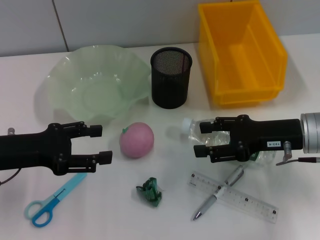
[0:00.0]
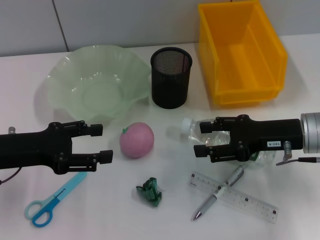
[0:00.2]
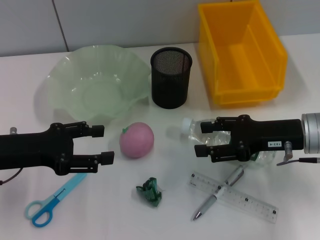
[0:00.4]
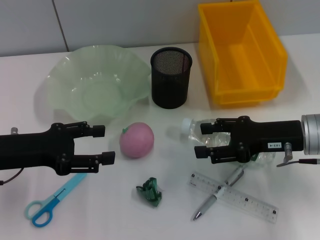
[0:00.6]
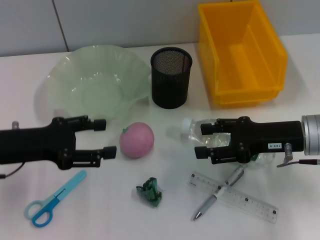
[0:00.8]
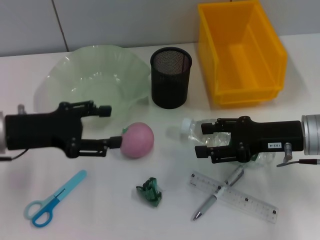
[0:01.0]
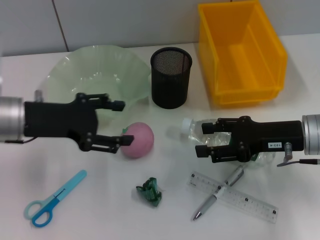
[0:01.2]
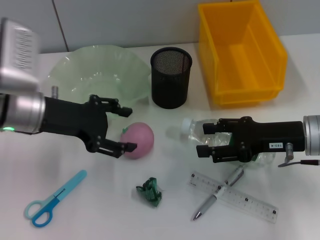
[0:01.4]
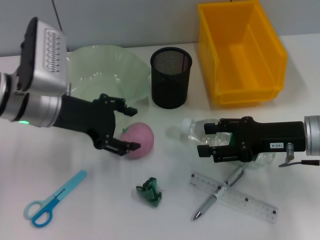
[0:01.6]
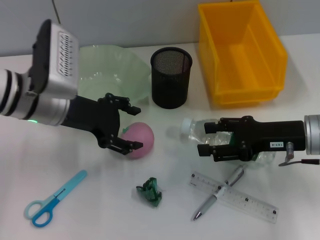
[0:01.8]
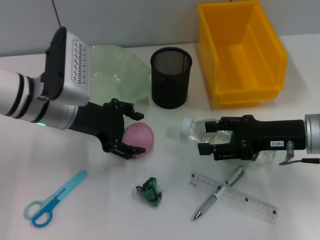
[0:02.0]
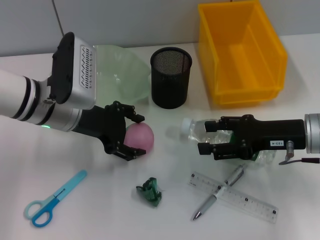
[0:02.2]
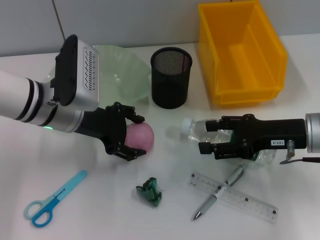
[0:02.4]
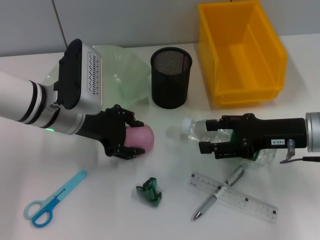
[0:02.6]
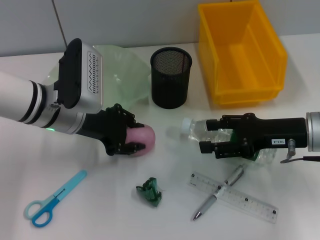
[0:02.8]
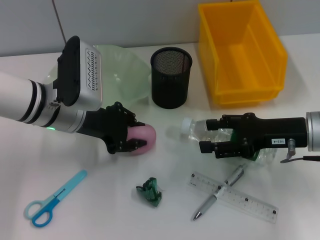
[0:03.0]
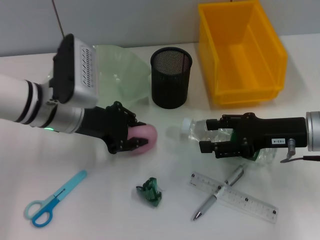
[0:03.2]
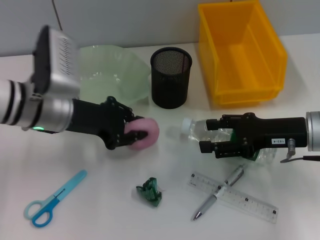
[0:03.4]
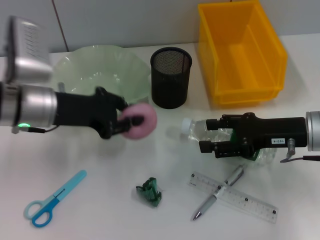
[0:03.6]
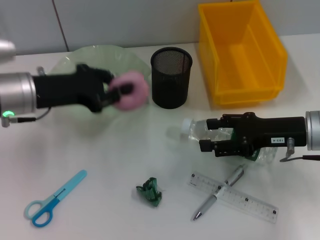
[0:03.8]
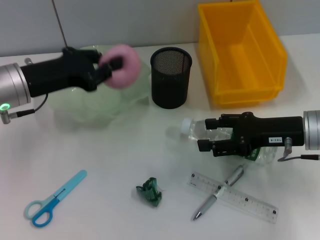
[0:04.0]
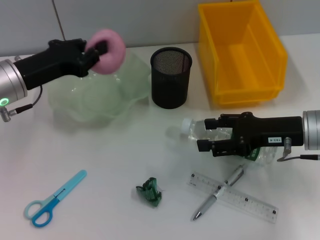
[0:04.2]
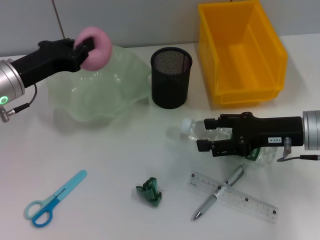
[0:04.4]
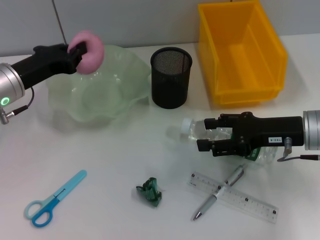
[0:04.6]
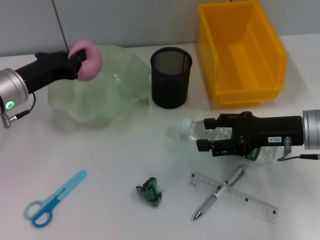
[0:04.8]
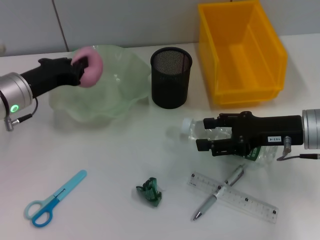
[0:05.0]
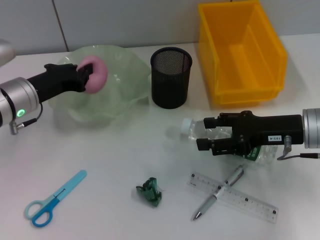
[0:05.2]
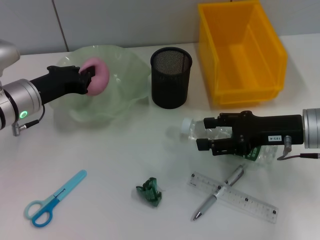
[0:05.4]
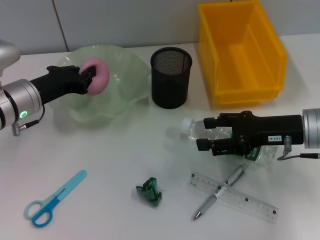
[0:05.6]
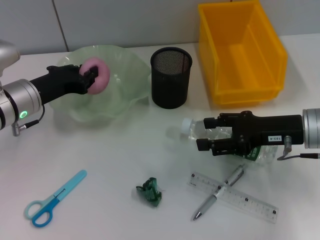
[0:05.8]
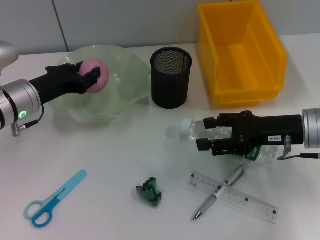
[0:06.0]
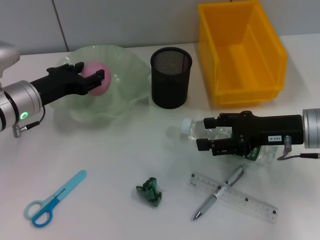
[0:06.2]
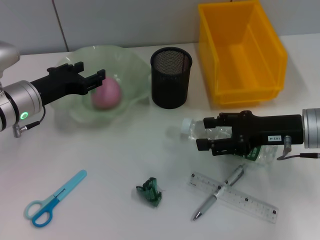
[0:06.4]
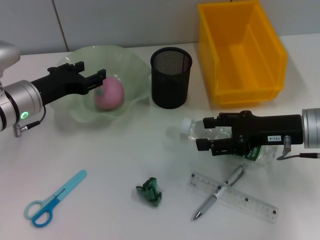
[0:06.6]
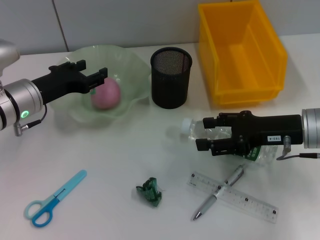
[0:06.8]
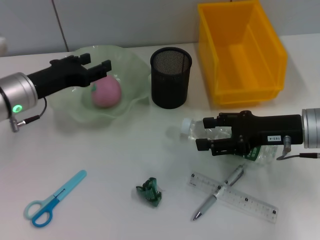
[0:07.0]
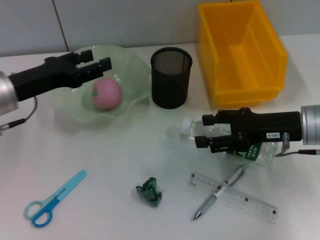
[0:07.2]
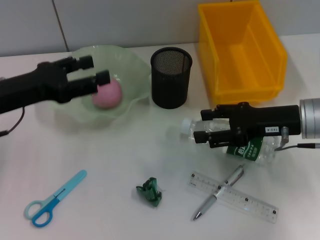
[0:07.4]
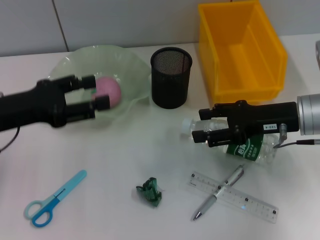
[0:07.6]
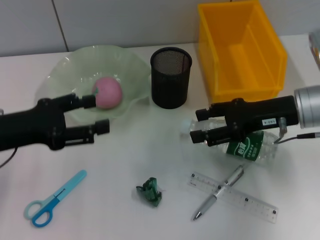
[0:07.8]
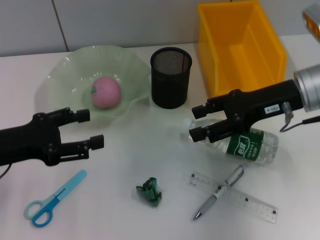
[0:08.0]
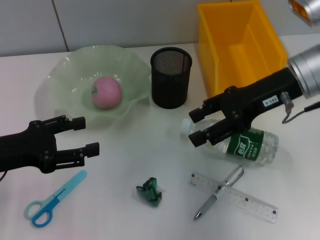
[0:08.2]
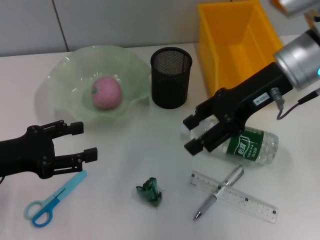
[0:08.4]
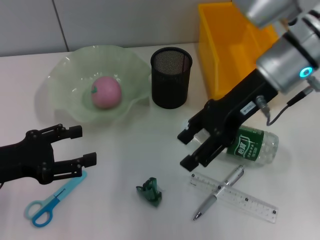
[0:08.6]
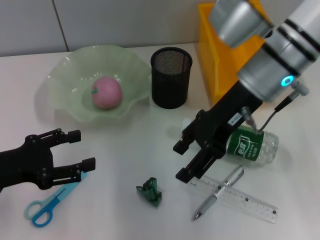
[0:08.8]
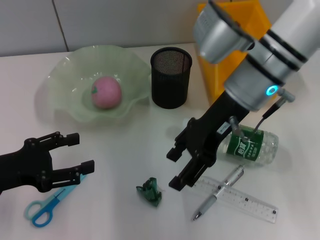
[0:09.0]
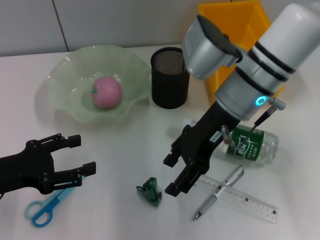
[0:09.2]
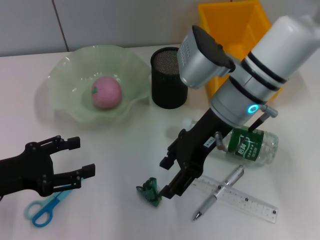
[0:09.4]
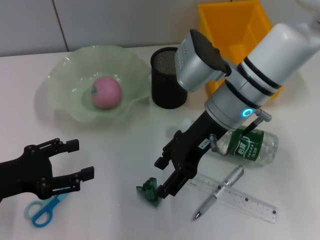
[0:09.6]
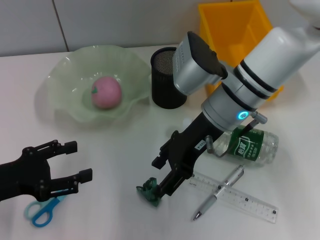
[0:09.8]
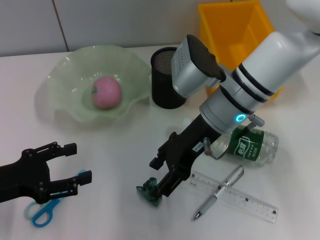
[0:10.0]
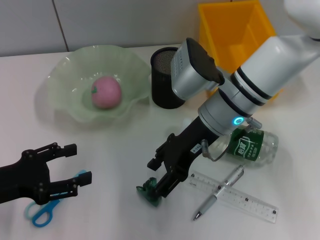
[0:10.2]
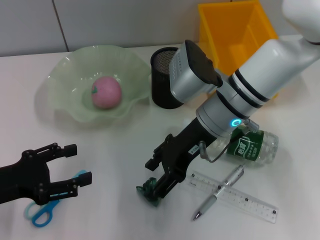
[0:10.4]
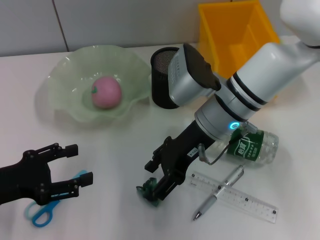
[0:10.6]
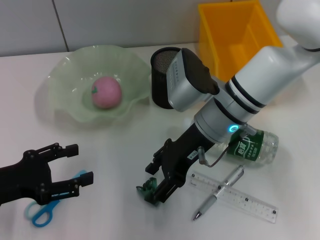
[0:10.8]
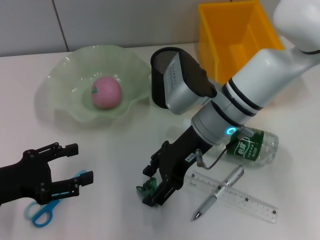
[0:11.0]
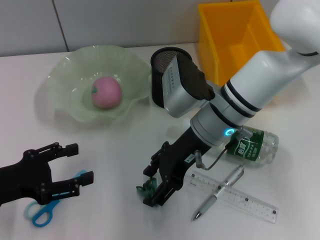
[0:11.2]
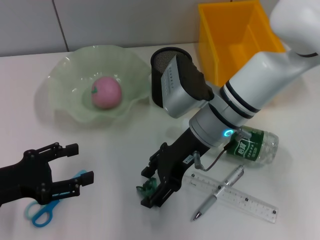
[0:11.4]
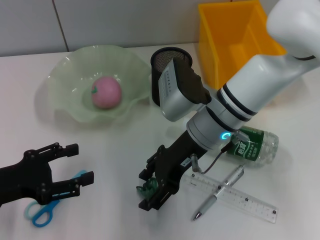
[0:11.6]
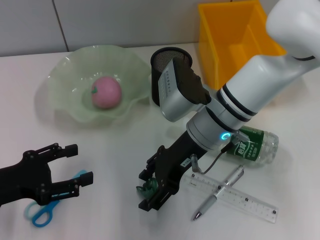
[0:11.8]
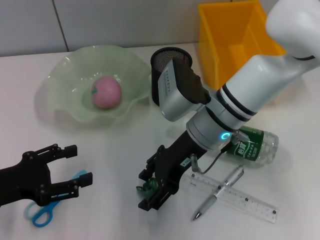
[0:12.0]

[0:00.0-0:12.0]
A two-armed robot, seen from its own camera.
Step, 0:00.0 to 0:02.8: Grab the peach with the left hand.
Step, 0:03.0 to 0:06.4: Place the peach into the fruit bowl with the left hand.
0:00.0 to 0:01.6: The left gripper shifts about 10 cm to the right and forward.
0:01.6 to 0:03.0: The left gripper closes.
0:03.0 to 0:04.4: The left gripper heads to the left, covering roughly 10 cm, and closes up.
0:04.4 to 0:06.0: The grippers make only small movements.
0:06.0 to 0:07.6: The left gripper heads backward and upward, covering some 10 cm, and opens.
0:07.6 to 0:09.0: The right gripper shifts about 15 cm to the left and upward. Meanwhile the left gripper travels backward and downward by approximately 5 cm.
0:09.0 to 0:10.4: The right gripper goes some 5 cm downward.
0:10.4 to 0:12.0: There are only small adjustments of the grippers.

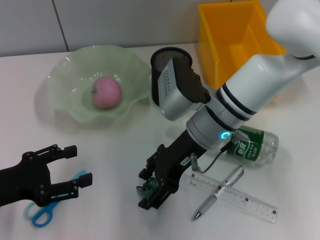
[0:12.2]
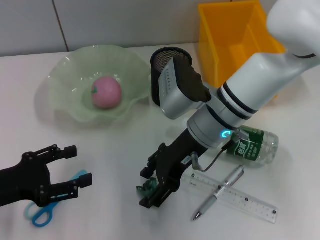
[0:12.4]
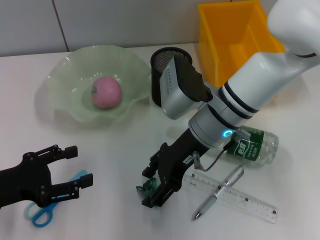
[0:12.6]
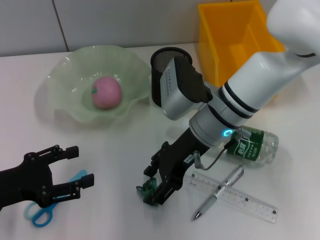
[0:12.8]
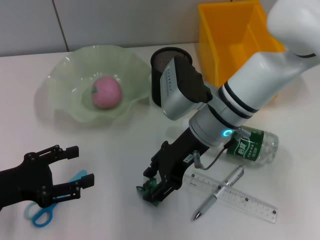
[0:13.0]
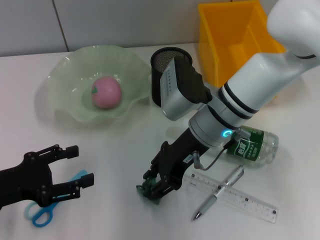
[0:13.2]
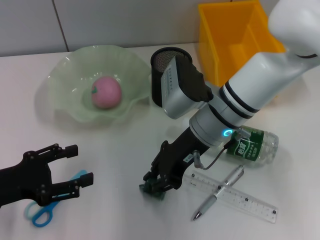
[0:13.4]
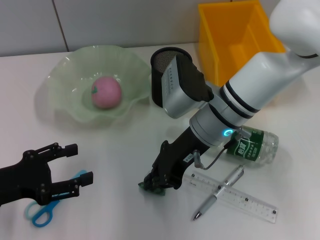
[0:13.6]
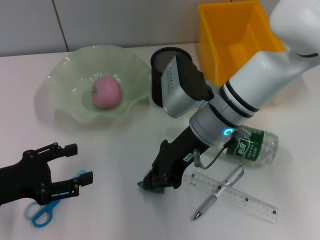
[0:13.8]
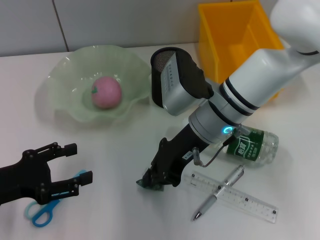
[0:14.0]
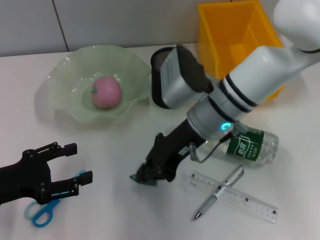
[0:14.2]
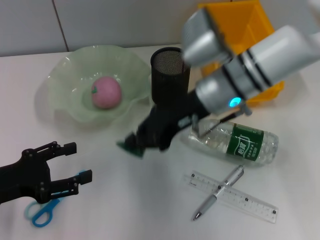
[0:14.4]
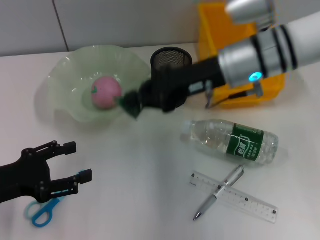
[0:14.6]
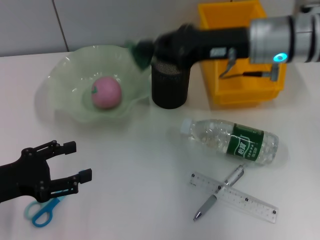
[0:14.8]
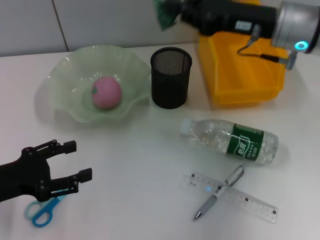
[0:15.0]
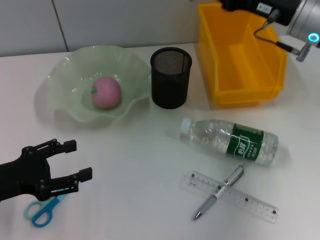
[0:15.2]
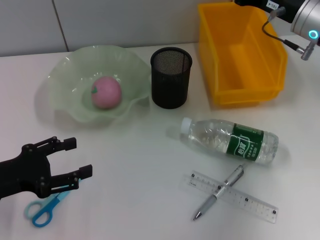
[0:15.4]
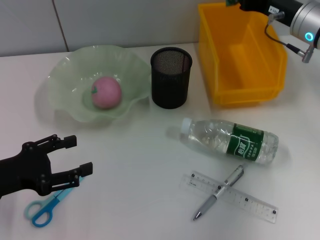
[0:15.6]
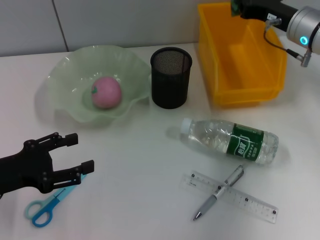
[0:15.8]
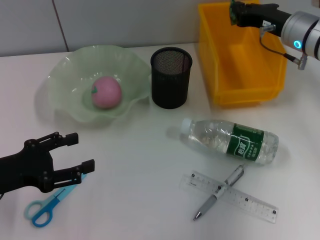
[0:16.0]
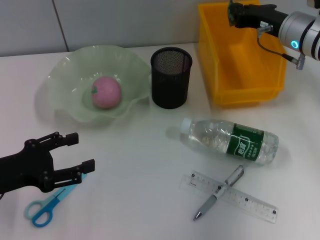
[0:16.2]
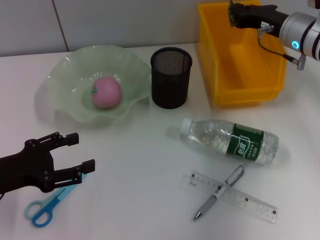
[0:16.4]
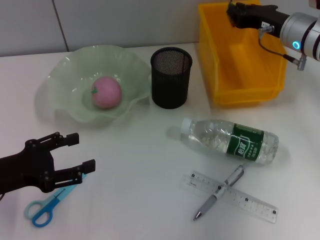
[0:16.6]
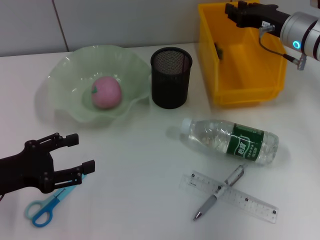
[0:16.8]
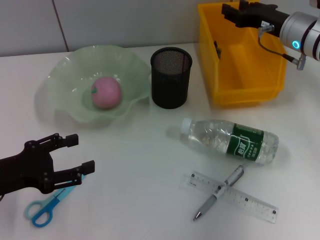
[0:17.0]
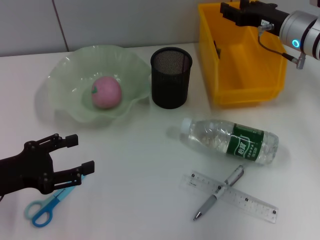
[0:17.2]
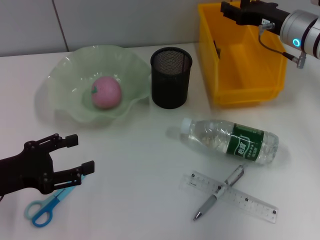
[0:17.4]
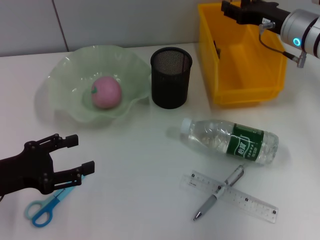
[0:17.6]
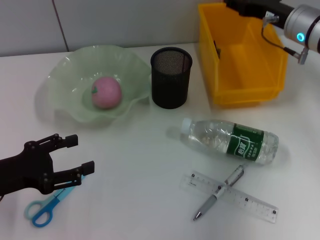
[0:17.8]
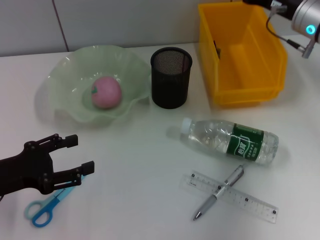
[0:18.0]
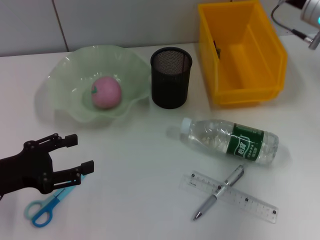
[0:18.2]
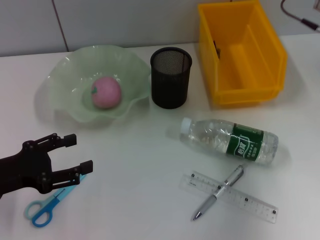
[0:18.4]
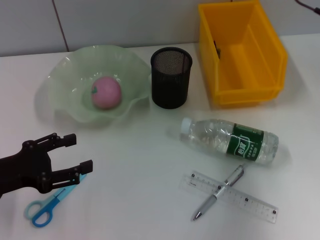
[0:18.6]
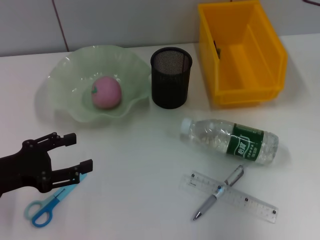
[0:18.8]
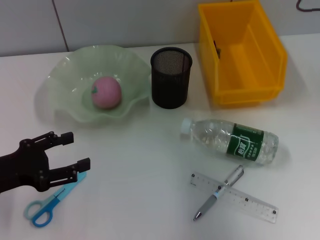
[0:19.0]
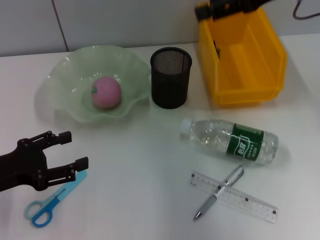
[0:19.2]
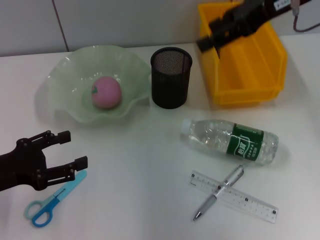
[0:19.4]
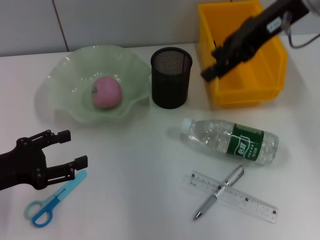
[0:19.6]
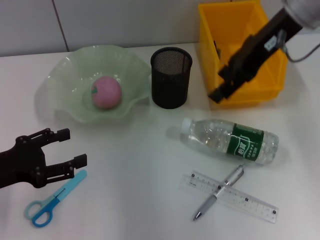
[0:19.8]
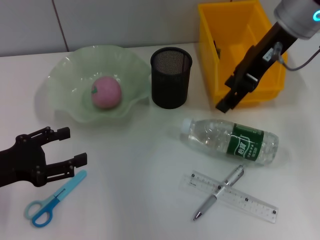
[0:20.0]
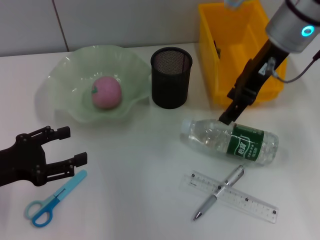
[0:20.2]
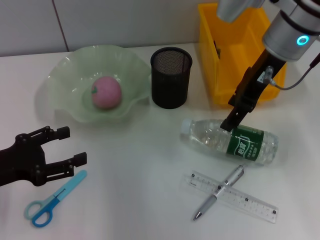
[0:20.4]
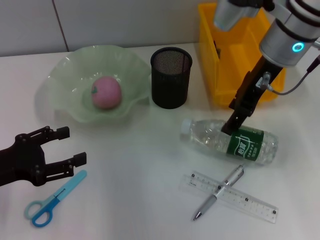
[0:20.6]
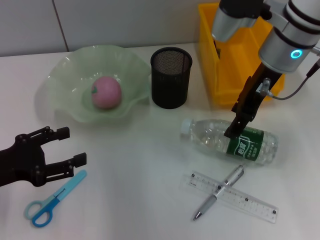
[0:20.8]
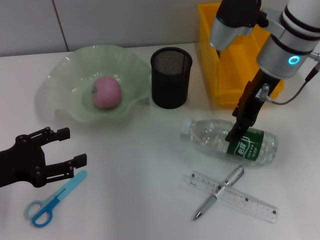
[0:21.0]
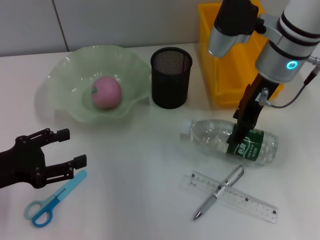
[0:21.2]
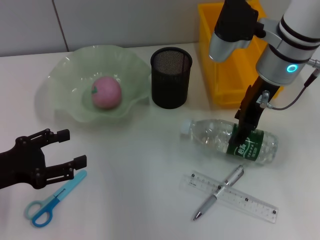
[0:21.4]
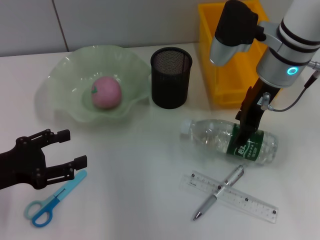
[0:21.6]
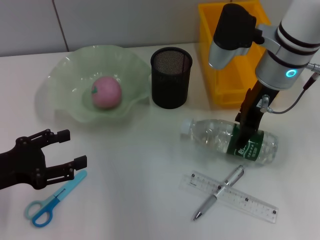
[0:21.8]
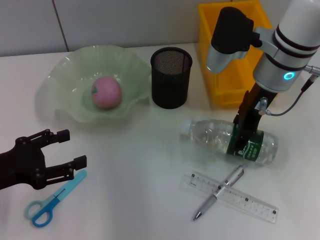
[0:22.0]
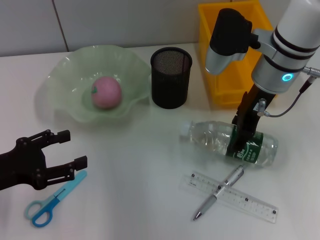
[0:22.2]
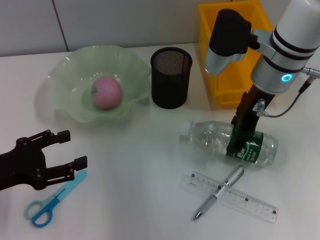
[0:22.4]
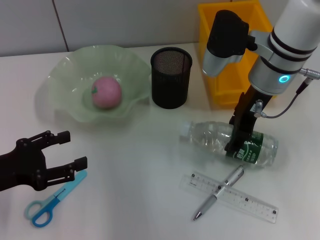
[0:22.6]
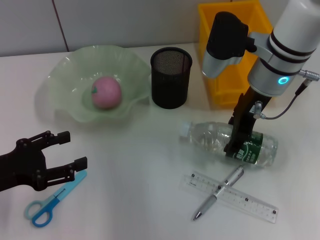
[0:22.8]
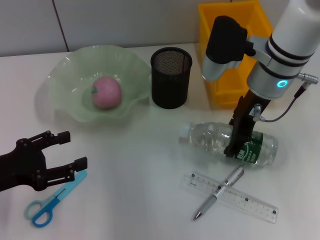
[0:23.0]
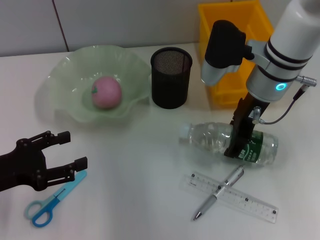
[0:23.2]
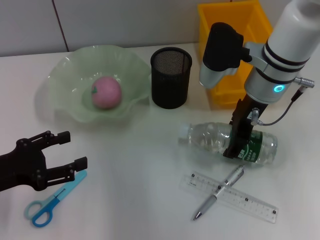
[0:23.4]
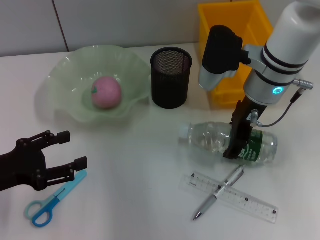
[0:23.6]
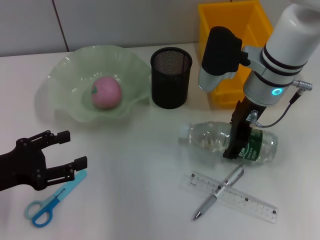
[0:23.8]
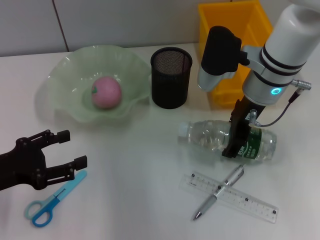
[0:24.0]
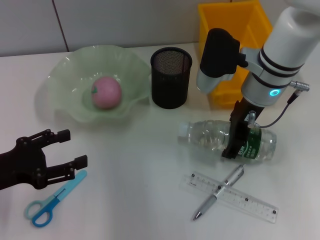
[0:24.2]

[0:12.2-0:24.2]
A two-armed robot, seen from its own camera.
Step, 0:13.8 to 0:16.8: Place the plastic into the trash can with the right hand.
0:12.2 to 0:13.8: The right gripper closes its fingers.
0:13.8 to 0:15.2: The right gripper is displaced to the right and upward by roughly 15 cm.
0:15.2 to 0:16.6: The right gripper shifts by about 5 cm.
0:16.6 to 0:18.2: The right gripper goes about 5 cm upward, and opens.
0:18.2 to 0:19.8: The right gripper is displaced upward and to the left by approximately 10 cm.
0:19.8 to 0:21.2: The right gripper goes approximately 10 cm downward.
0:21.2 to 0:24.2: The grippers stay close to where they were, moving slightly.
